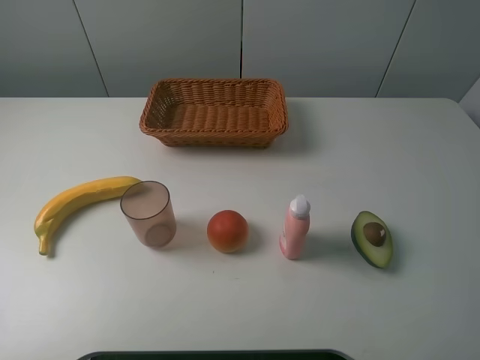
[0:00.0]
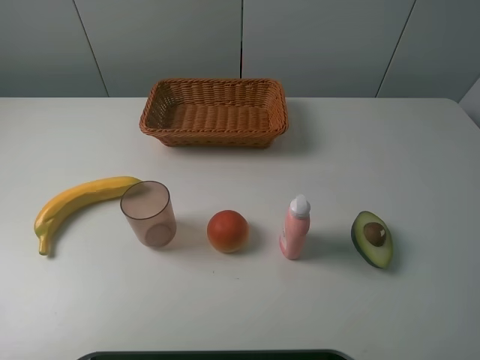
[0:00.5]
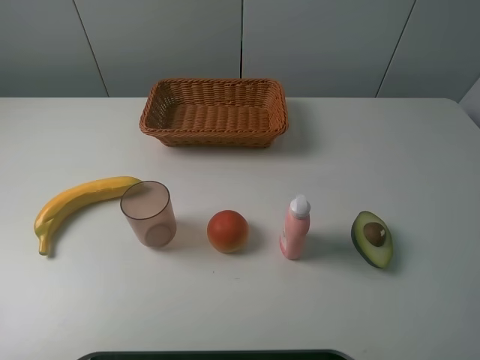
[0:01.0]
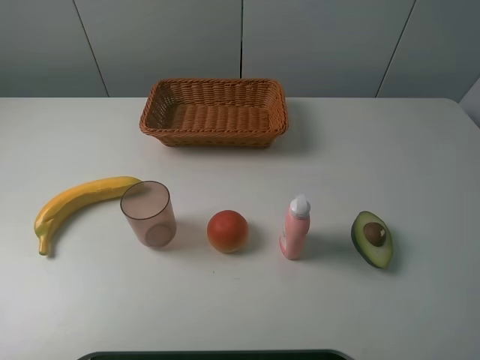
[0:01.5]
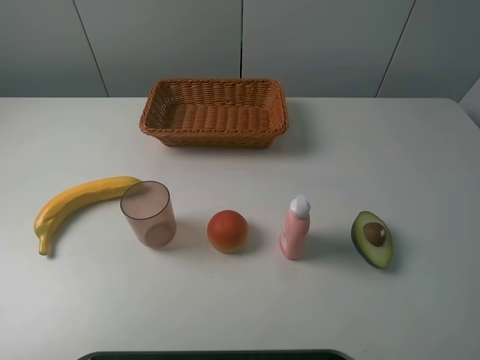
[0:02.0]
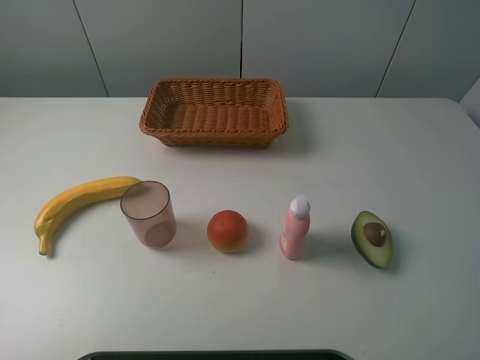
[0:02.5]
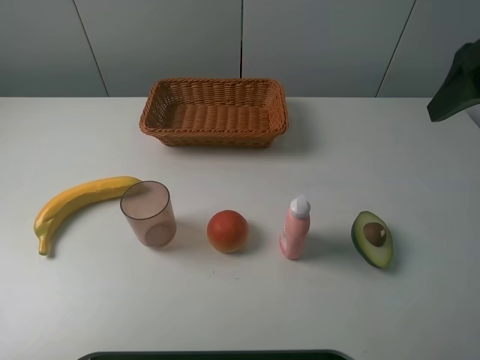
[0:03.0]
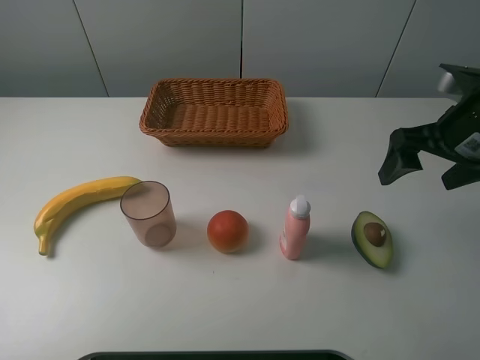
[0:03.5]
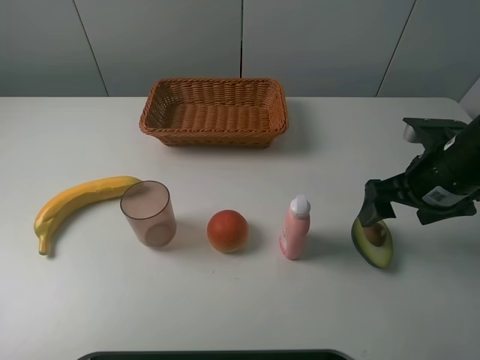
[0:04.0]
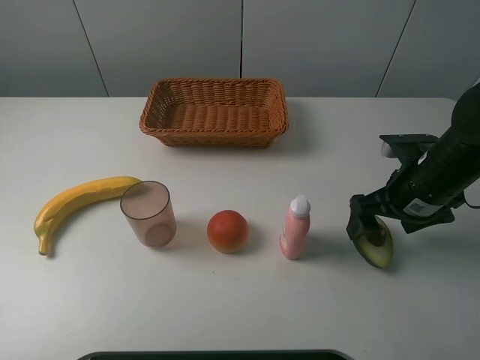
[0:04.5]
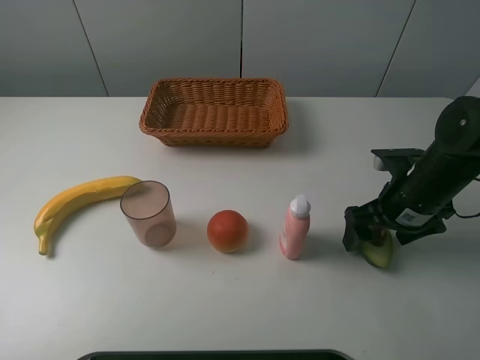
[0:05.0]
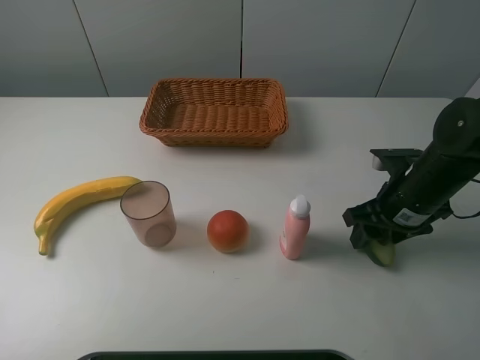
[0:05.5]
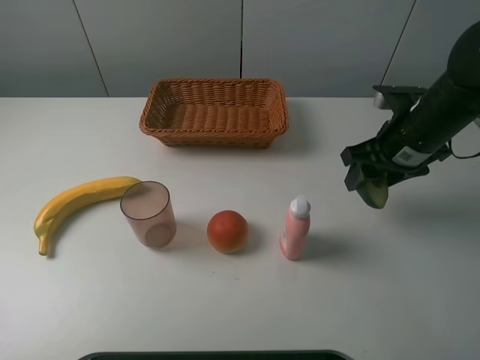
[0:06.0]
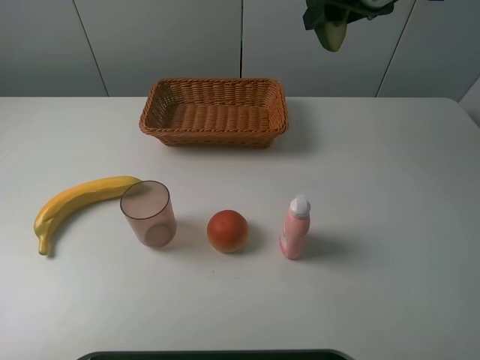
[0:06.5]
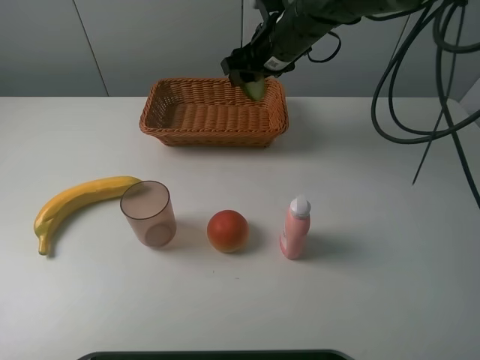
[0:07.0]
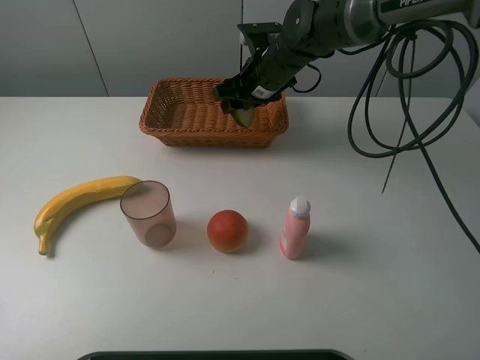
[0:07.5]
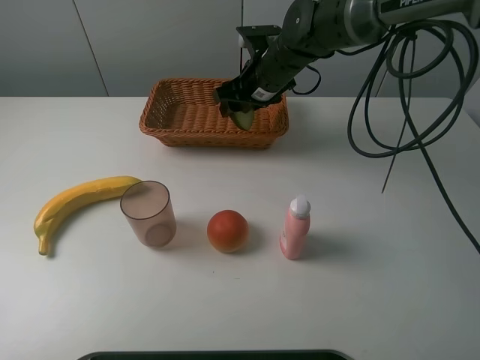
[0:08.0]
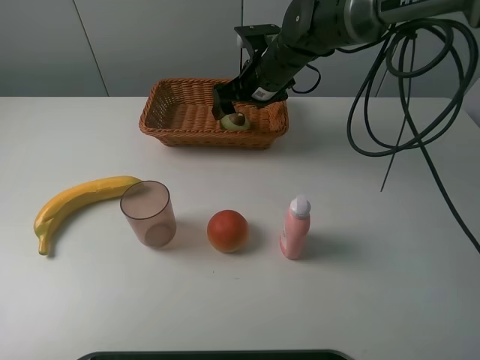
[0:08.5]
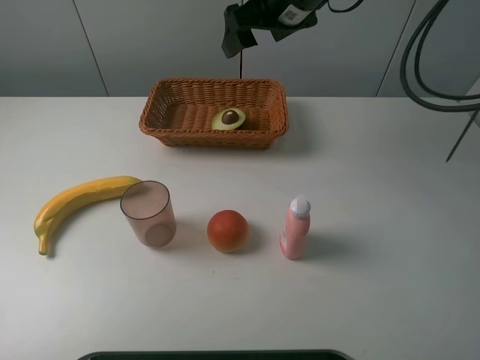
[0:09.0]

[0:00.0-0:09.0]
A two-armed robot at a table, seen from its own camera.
Task of the whole recording: randomly pick up an item from the table and put it in the basket.
Step, 0:00.0 to 0:05.5: Grasp the avocado with the right gripper.
Step, 0:06.0 to 0:08.0: Place the avocado into the basket with the right gripper.
0:00.0 to 0:02.0: The two grippers keep their place.
0:02.0 to 0:04.5: The right gripper moves forward and downward, roughly 30 cm.
0:04.5 to 0:07.0: The right gripper is displaced forward and to the left by about 25 cm, travels upward and back again, roughly 20 cm each way, and closes its fingers.
0:07.0 to 0:09.0: The right gripper heads upward, covering about 10 cm, and opens up.

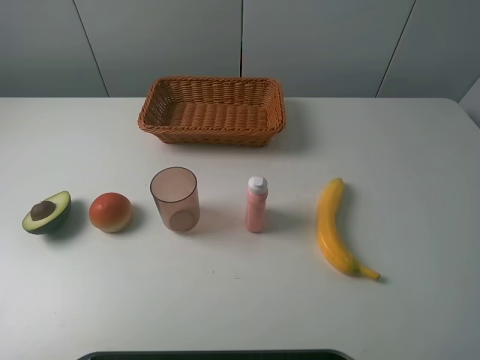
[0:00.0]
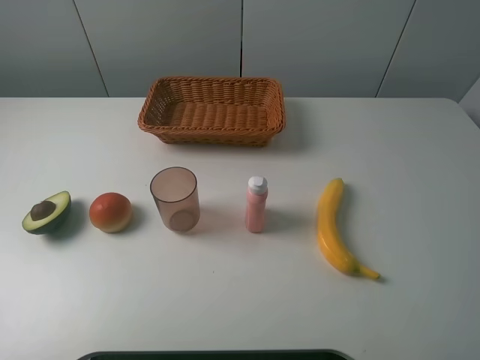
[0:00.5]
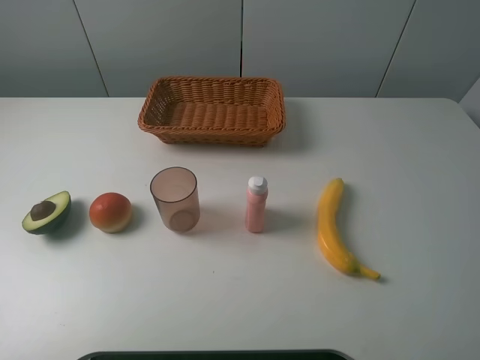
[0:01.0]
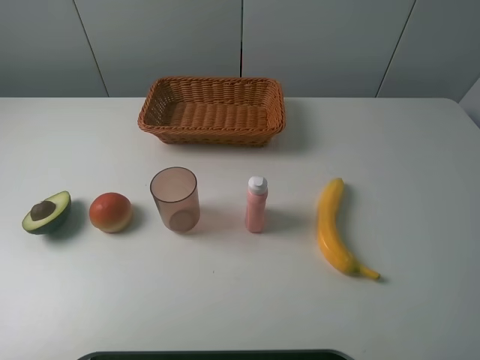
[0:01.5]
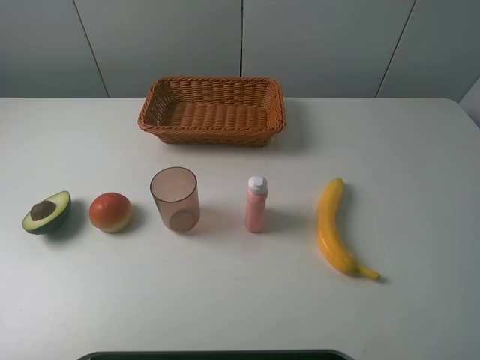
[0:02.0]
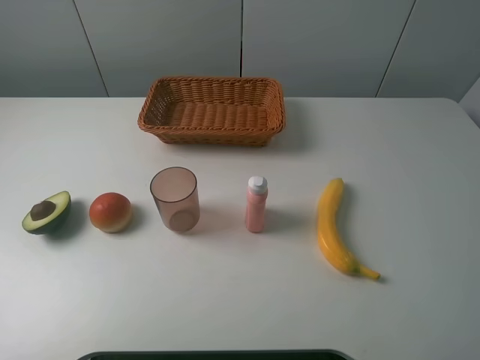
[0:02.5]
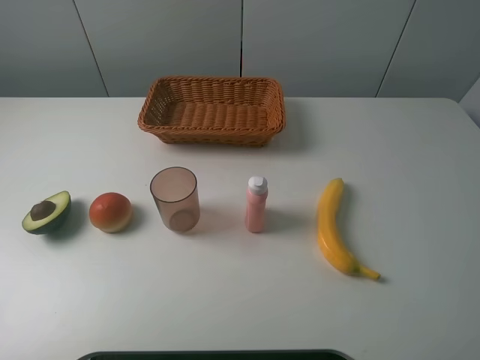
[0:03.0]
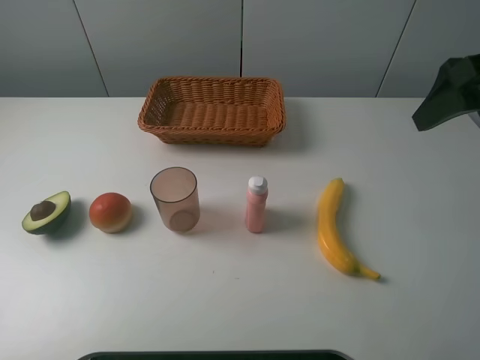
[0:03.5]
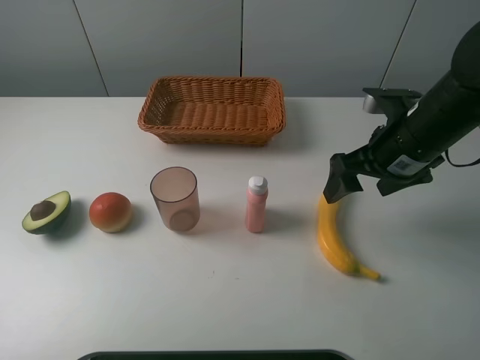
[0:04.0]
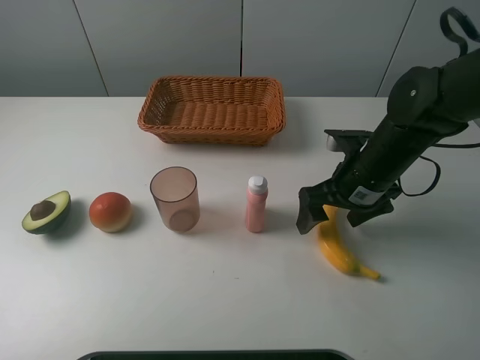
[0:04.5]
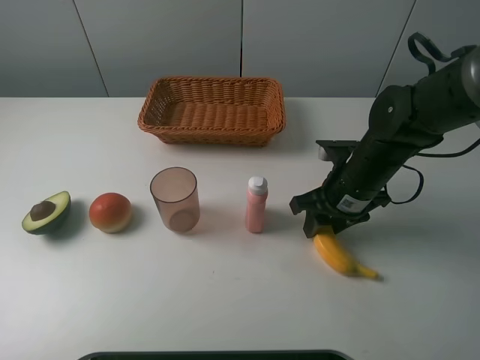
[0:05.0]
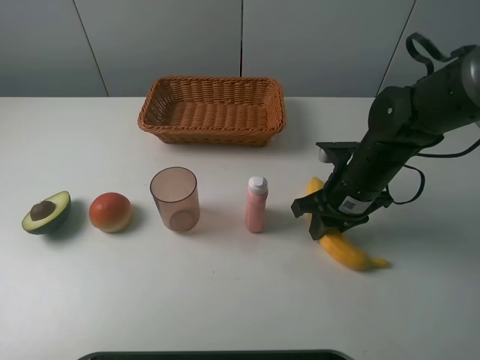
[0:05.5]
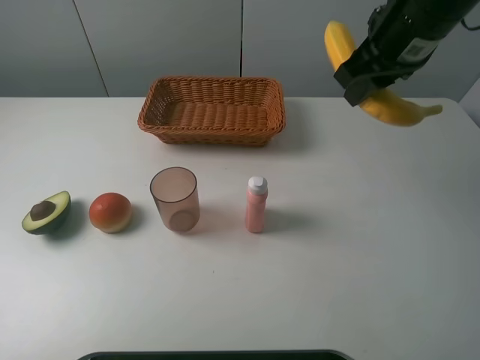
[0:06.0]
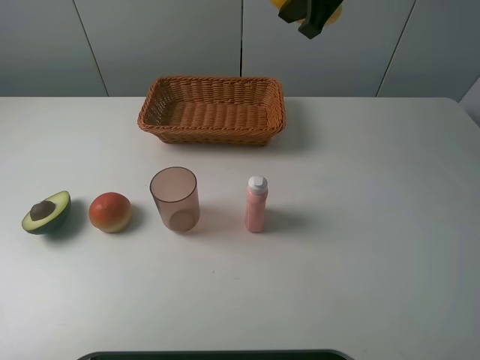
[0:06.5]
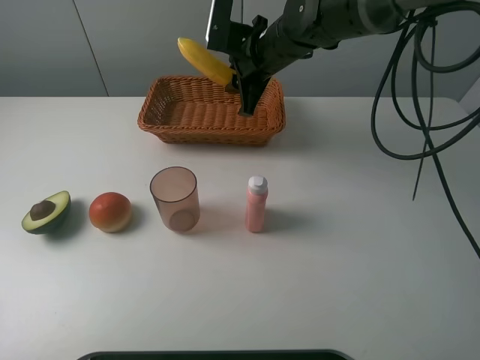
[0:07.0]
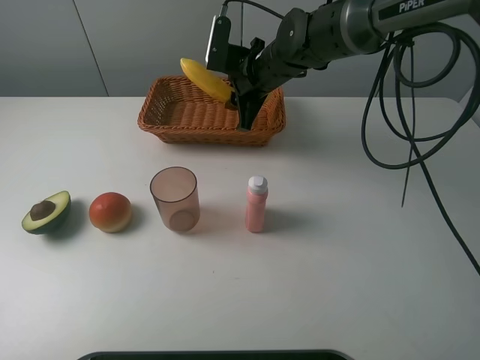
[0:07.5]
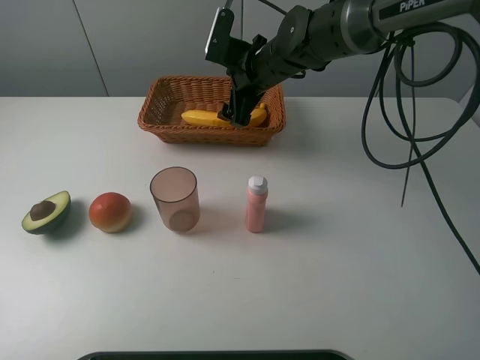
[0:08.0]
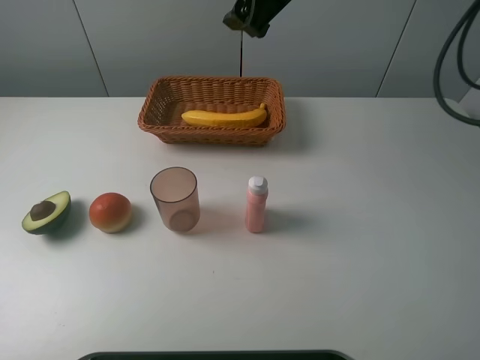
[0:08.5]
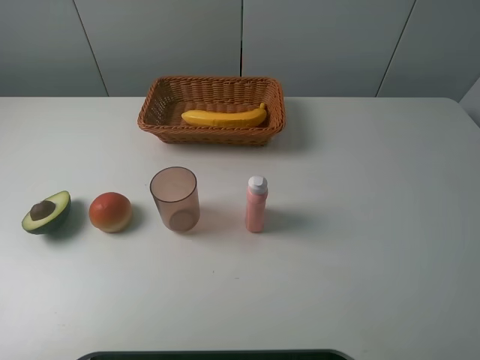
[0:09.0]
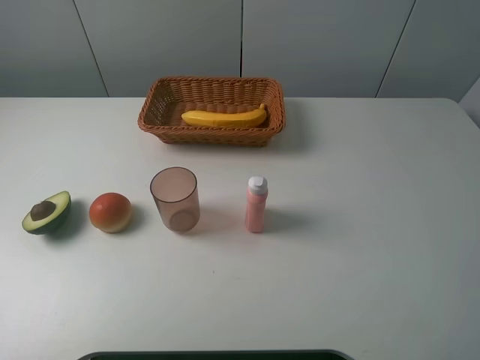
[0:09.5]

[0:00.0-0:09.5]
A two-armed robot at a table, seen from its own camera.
Task of the whole recording: randomly pick up an item from the table and put it in the basket.
Step, 0:00.0 to 0:05.0: Grasp the banana with the right gripper.
Step, 0:05.5 to 0:08.0: Place the banana into the basket with the right gripper.
0:00.0 to 0:02.0: The two grippers keep their place.
0:02.0 to 0:04.0: The right gripper moves forward and downward, approximately 30 cm.
0:04.0 to 0:05.5: The right gripper travels downward by roughly 5 cm, and closes.
0:05.5 to 0:07.5: The right gripper shifts some 20 cm forward and to the left, and goes upward and returns, approximately 20 cm each way.
0:07.5 to 0:09.5: The right gripper is displaced backward, upward and to the right by roughly 50 cm, and opens its fingers.

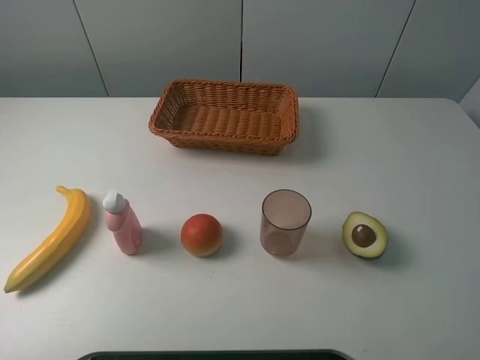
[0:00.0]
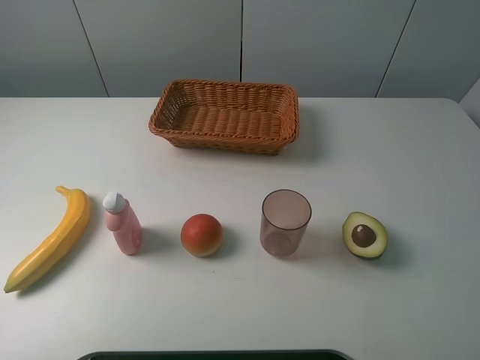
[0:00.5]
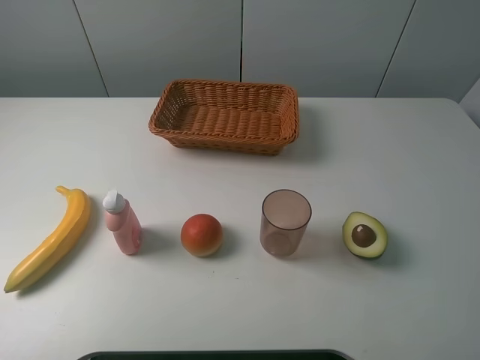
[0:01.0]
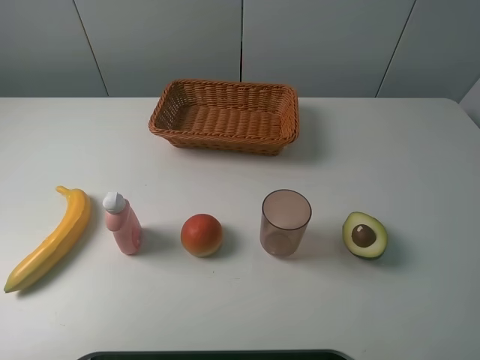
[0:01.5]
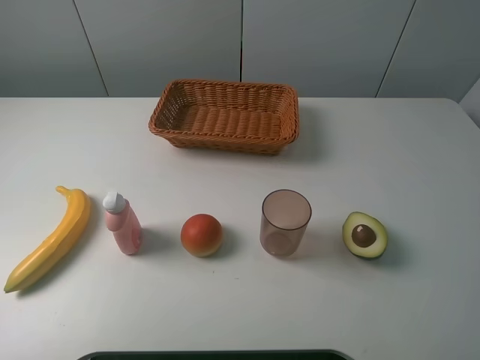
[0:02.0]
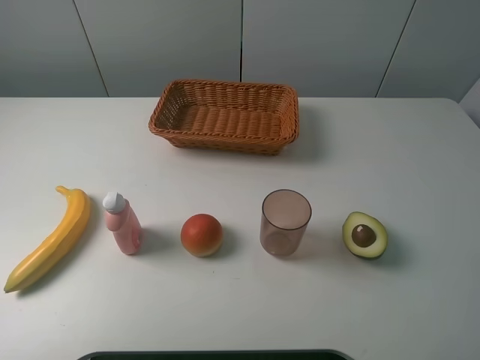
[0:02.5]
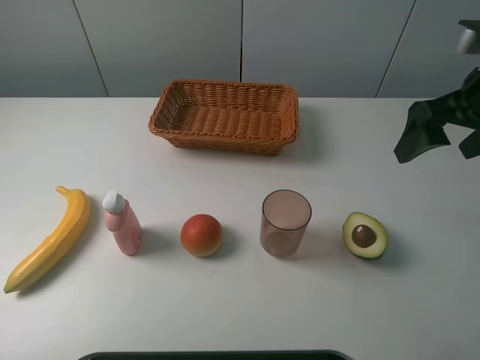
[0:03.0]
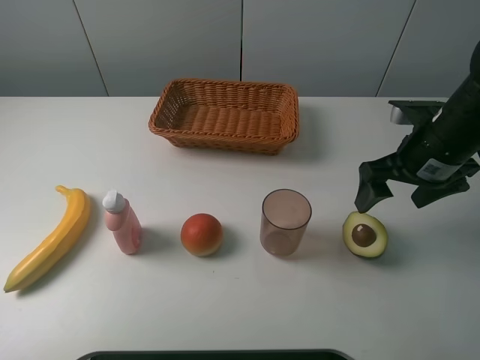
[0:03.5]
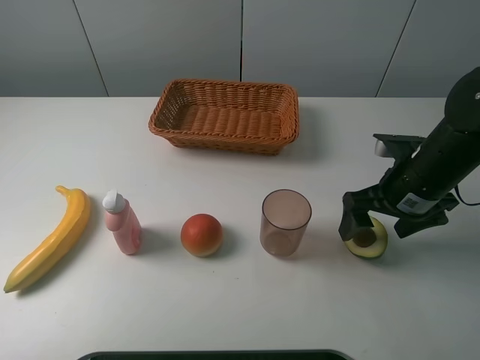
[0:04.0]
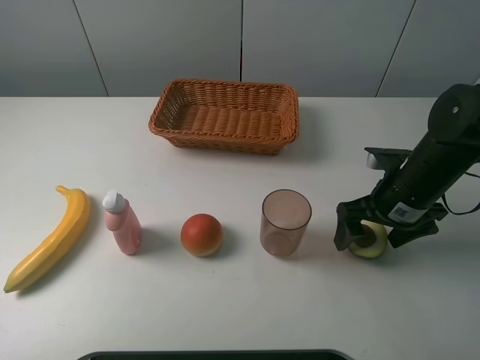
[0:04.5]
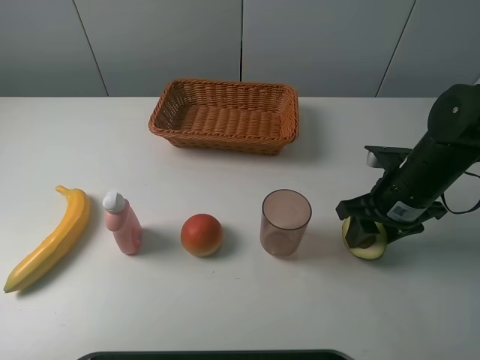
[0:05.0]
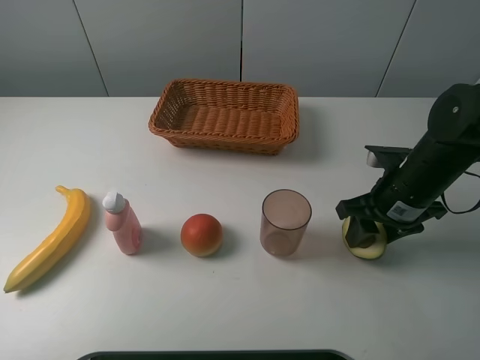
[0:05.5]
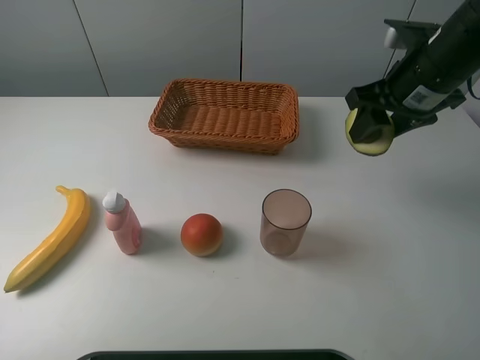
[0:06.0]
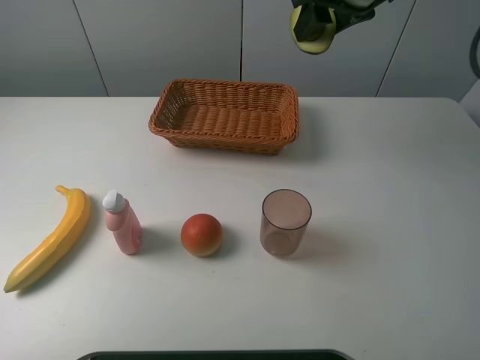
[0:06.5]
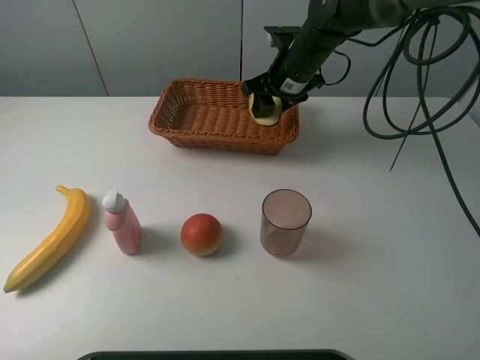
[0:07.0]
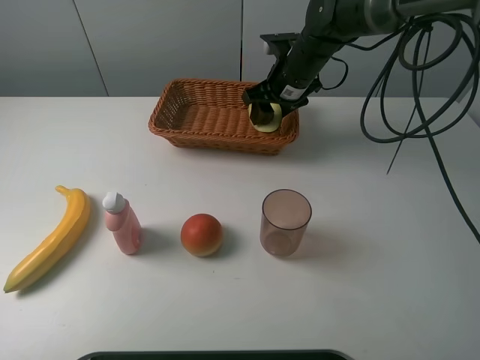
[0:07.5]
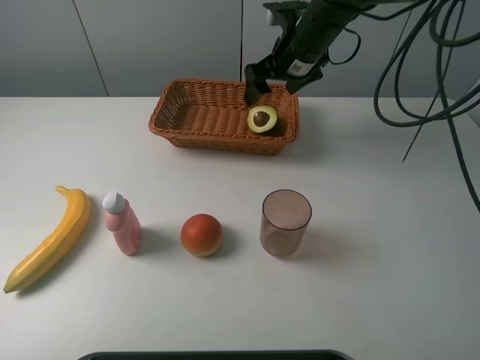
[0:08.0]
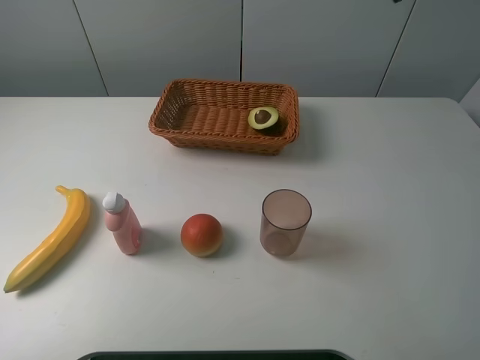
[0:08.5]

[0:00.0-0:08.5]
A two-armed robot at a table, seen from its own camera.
Task of the whole recording: randomly pick up an item from the table and put it in the basket.
Step, 0:00.0 to 0:05.0: Grasp the avocado with the right gripper.
Step, 0:05.5 to 0:07.5: Place the avocado into the basket with the right gripper.
0:00.0 to 0:02.0: Neither gripper changes place.
0:02.0 to 0:04.0: The right gripper goes approximately 30 cm forward and downward.
0:04.0 to 0:06.5: The right gripper is displaced upward, forward and to the left by roughly 25 cm, and closes up.
0:06.5 to 0:08.5: The right gripper heads upward, to the right and backward, covering approximately 15 cm, and opens up.
